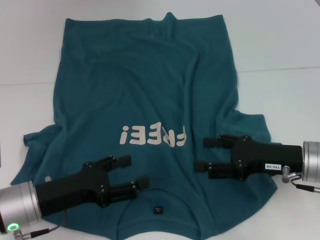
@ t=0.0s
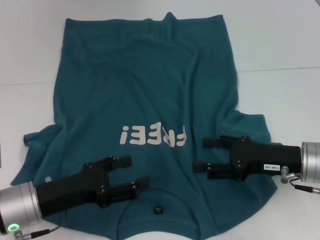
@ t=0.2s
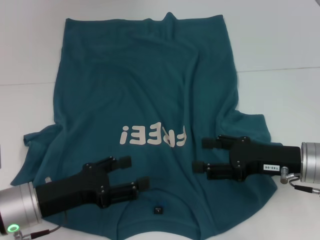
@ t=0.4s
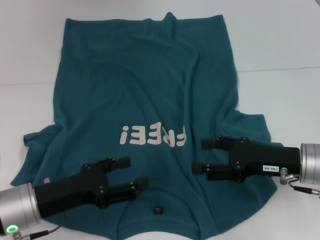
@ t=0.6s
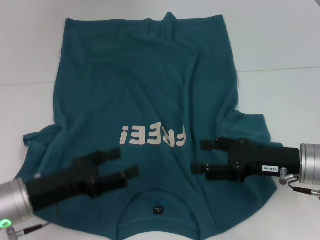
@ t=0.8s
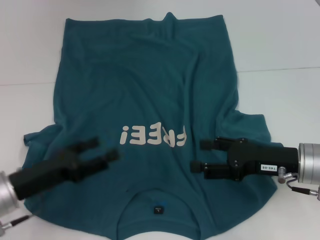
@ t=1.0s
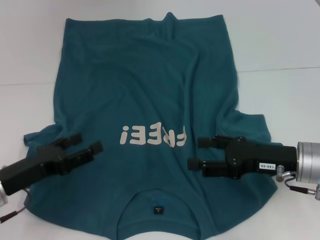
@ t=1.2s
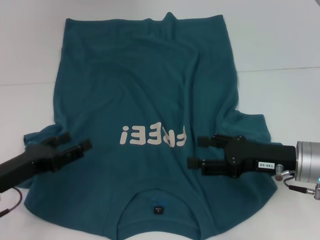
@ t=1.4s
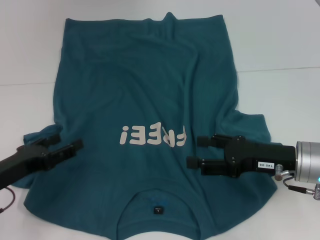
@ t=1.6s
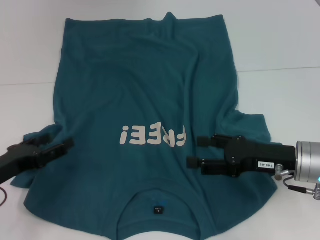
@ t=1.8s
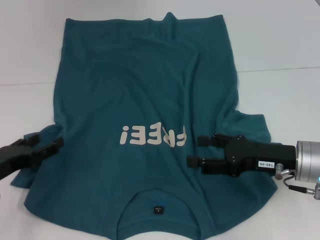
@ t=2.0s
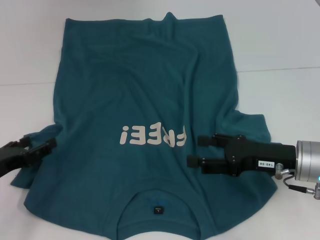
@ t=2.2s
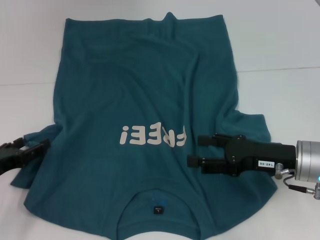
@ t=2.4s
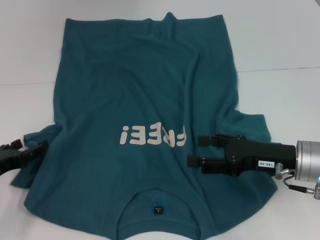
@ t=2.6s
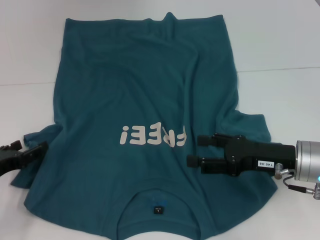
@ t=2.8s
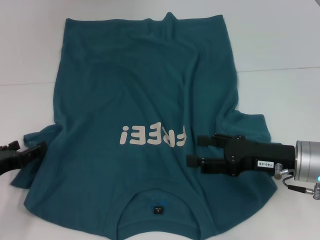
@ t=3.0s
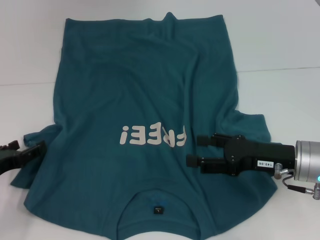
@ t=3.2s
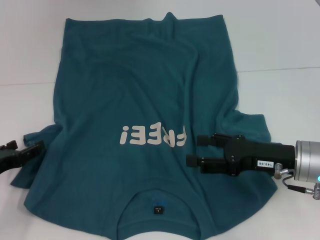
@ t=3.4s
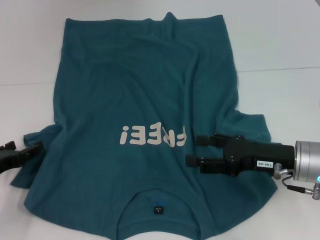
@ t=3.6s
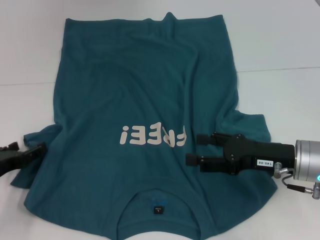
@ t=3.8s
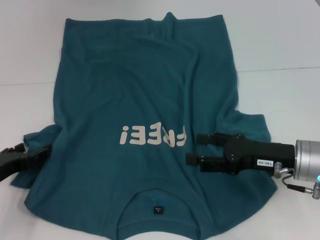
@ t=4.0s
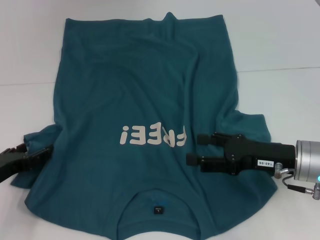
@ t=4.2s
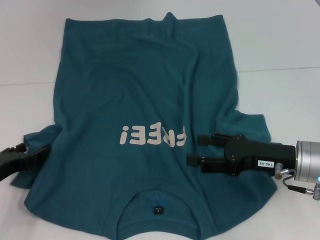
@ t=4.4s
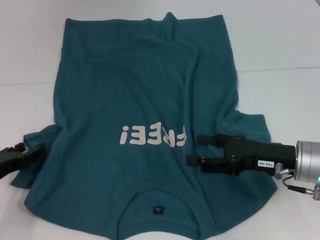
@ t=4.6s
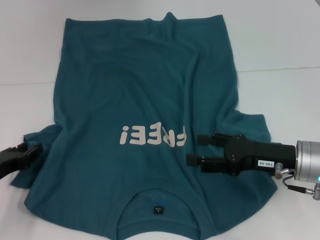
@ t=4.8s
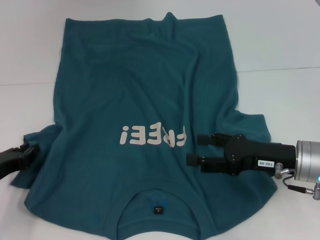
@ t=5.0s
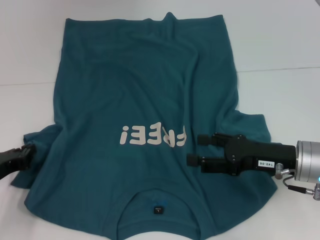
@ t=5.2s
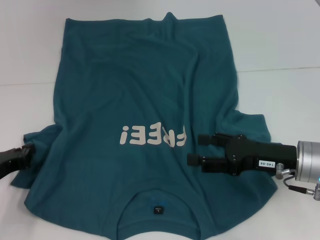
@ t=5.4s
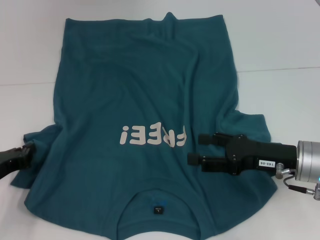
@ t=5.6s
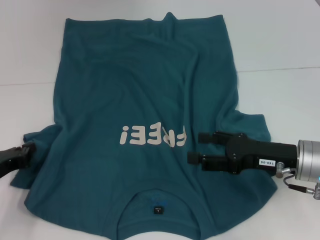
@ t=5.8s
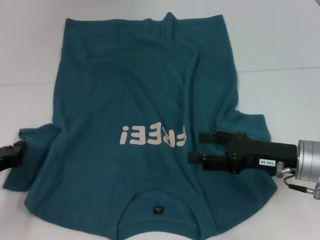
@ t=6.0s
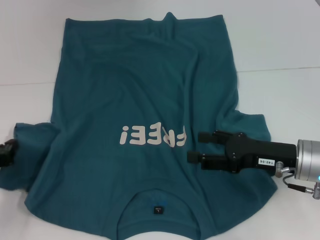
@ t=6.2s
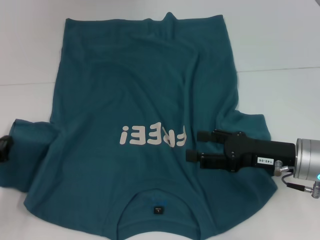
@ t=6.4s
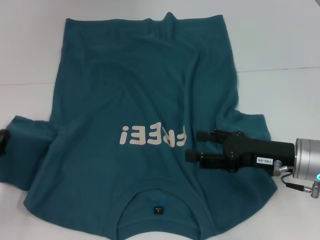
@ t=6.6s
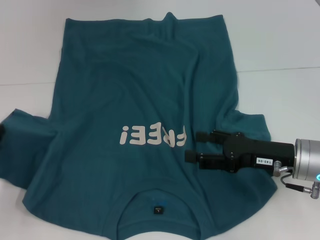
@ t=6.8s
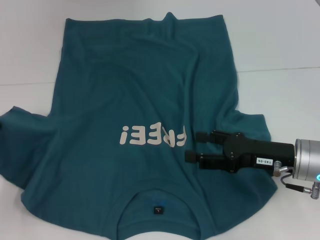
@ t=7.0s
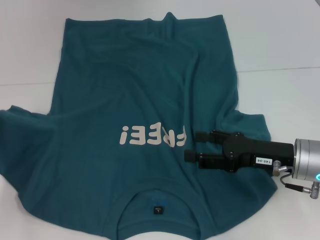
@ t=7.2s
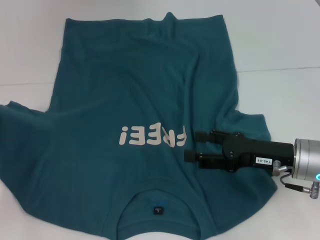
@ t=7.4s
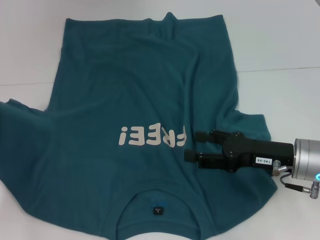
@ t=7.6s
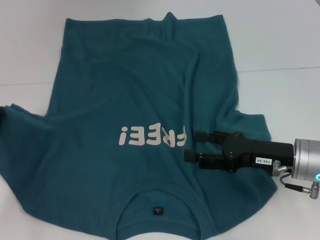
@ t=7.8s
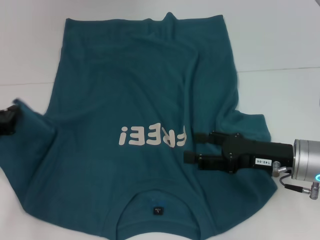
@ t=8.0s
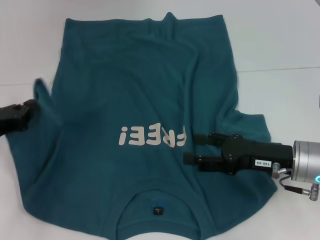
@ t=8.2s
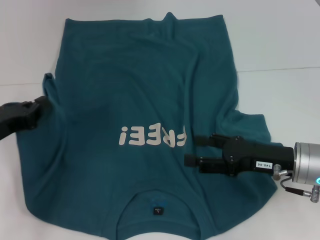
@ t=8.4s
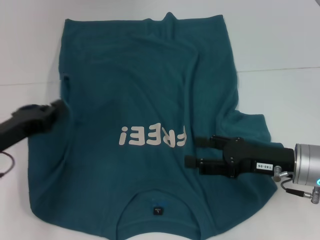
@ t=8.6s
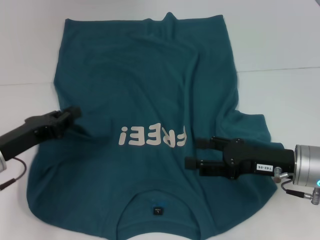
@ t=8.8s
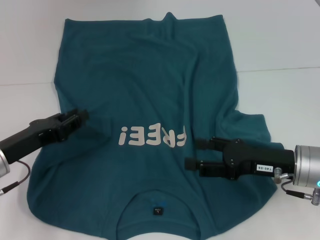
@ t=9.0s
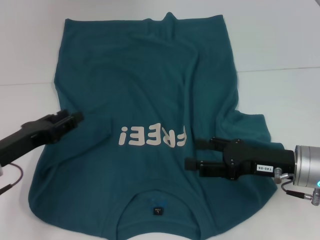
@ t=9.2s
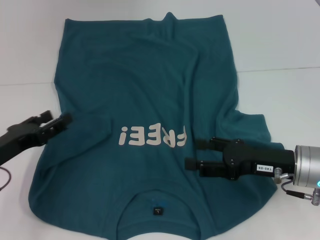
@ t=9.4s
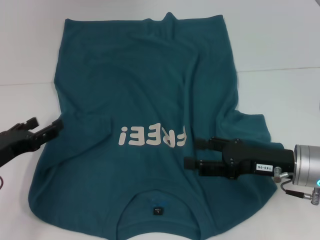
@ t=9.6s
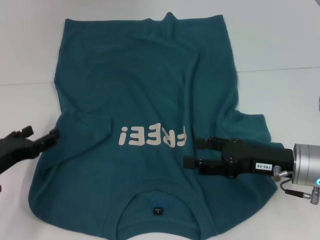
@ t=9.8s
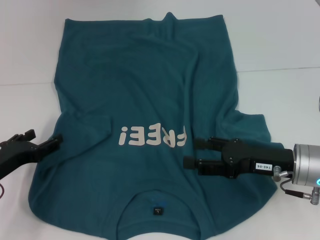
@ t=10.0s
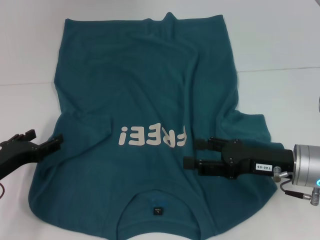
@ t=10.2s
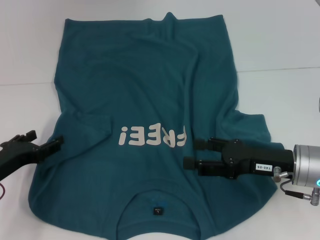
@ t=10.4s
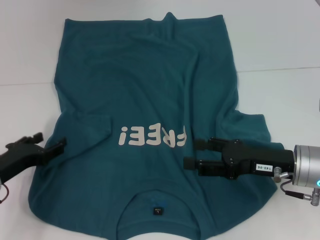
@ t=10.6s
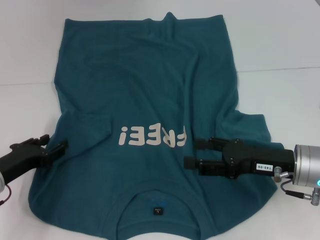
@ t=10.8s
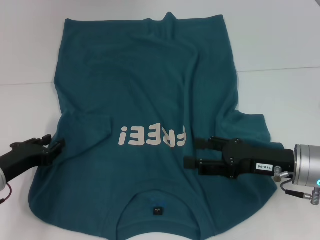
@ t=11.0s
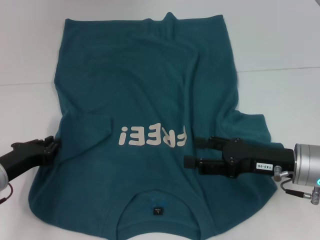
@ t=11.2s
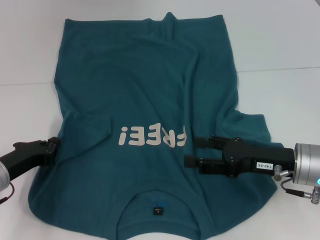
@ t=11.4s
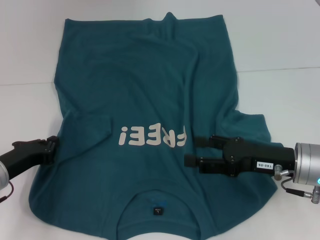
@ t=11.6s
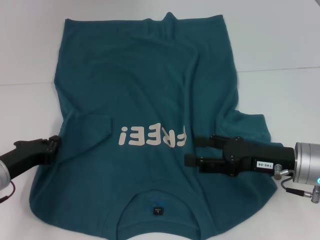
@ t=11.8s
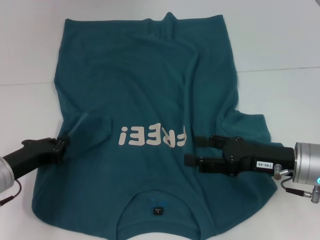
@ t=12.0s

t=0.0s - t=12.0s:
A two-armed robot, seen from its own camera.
t=0.0s - t=1.6s: The left gripper goes some 5 cm to the left.
t=1.6s - t=3.0s: There are only small adjustments of the grippers.
t=4.4s - t=6.0s: The left gripper closes.
t=6.0s - t=7.6s: The left gripper goes approximately 5 cm upward.
t=7.6s - t=9.0s: The left gripper travels to the right by roughly 10 cm.
t=9.0s - t=10.4s: The left gripper shifts by about 5 cm, and opens its fingers.
t=10.4s - t=12.0s: The left gripper closes its fingers.

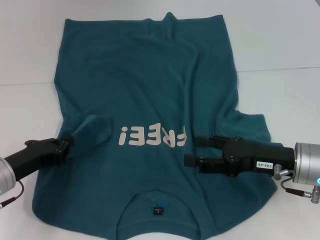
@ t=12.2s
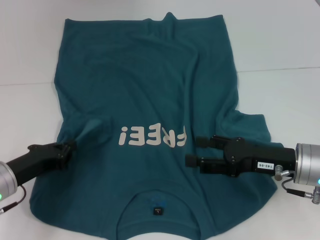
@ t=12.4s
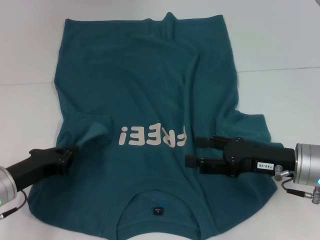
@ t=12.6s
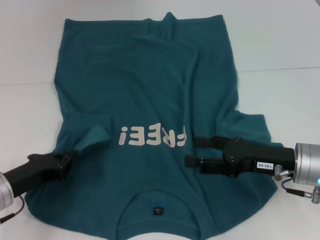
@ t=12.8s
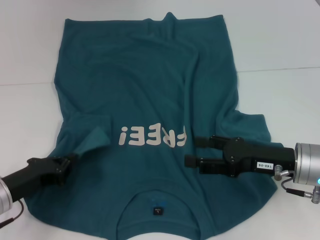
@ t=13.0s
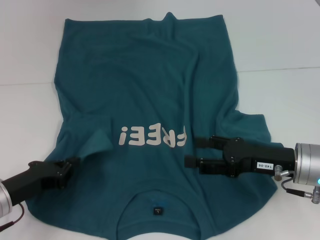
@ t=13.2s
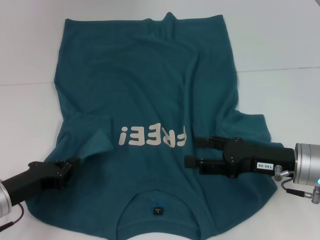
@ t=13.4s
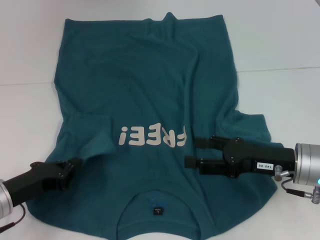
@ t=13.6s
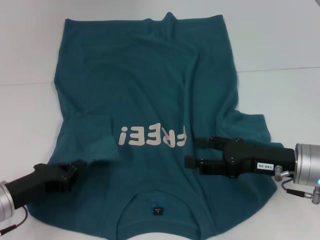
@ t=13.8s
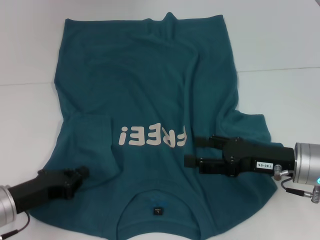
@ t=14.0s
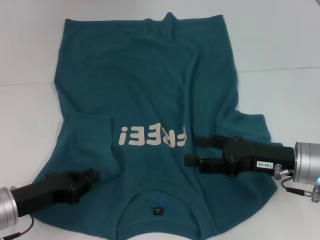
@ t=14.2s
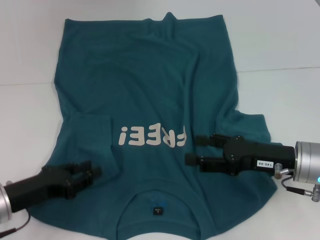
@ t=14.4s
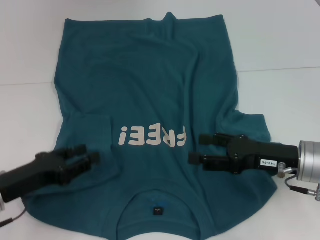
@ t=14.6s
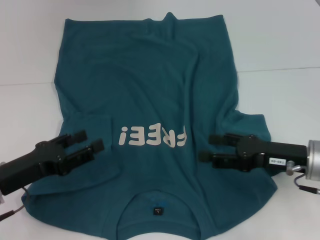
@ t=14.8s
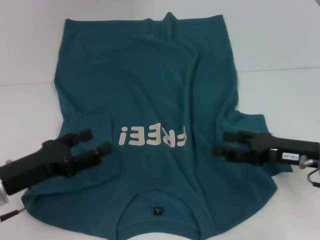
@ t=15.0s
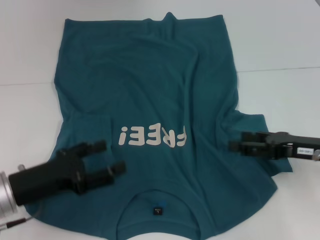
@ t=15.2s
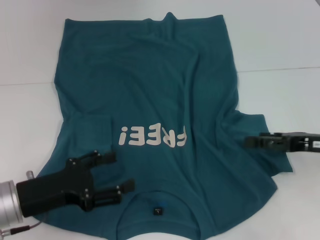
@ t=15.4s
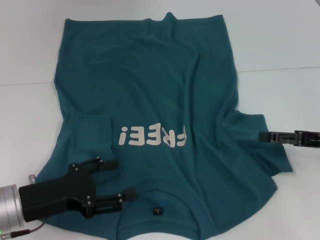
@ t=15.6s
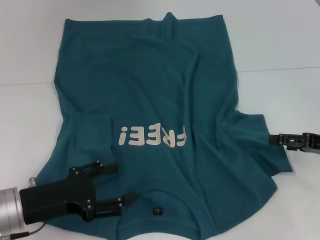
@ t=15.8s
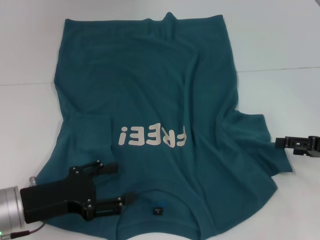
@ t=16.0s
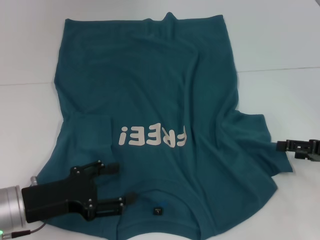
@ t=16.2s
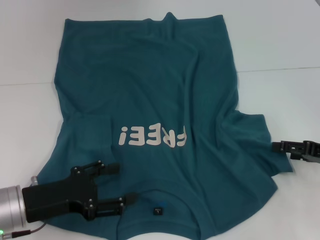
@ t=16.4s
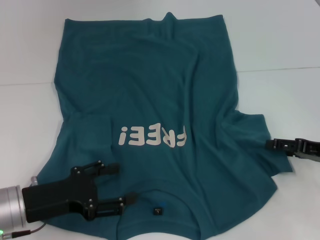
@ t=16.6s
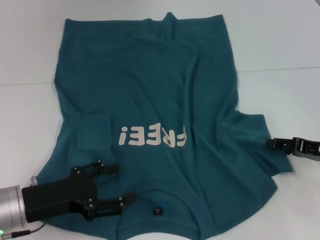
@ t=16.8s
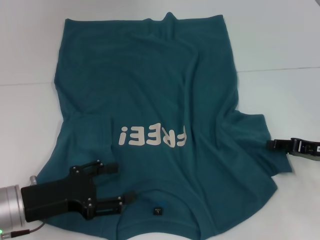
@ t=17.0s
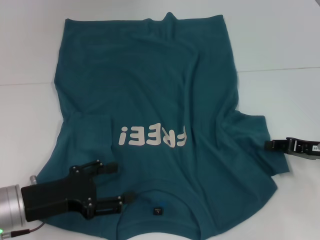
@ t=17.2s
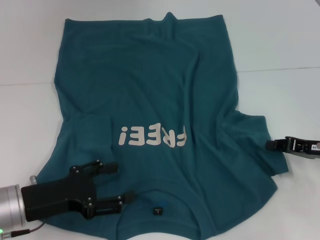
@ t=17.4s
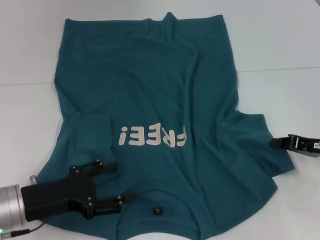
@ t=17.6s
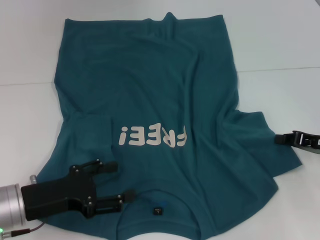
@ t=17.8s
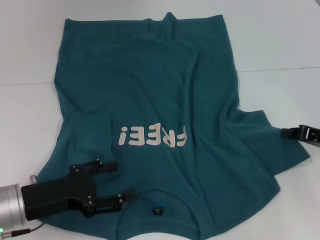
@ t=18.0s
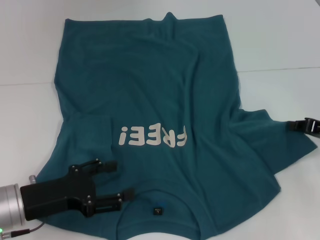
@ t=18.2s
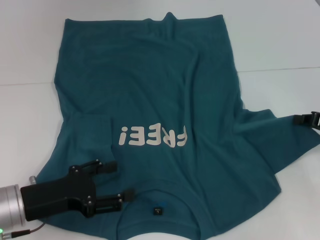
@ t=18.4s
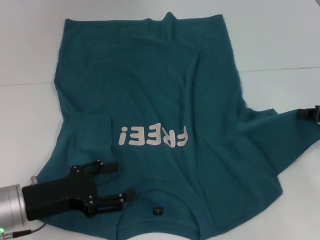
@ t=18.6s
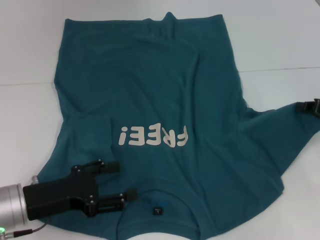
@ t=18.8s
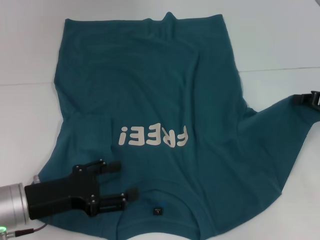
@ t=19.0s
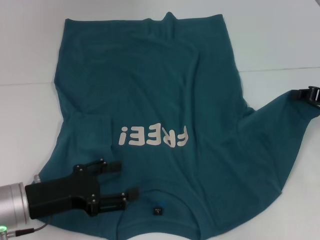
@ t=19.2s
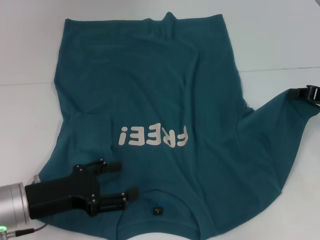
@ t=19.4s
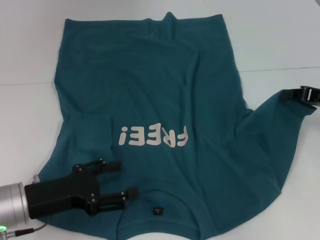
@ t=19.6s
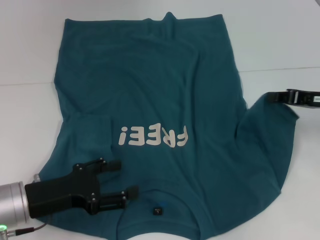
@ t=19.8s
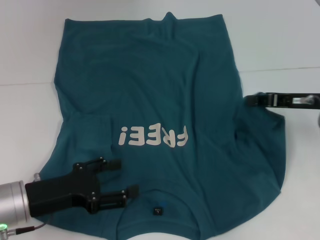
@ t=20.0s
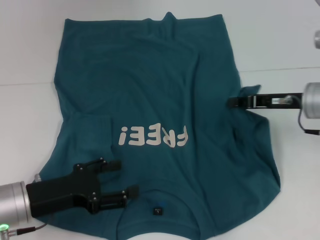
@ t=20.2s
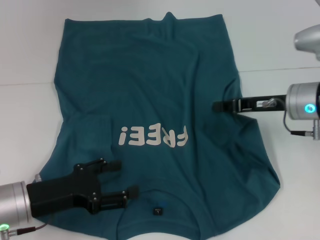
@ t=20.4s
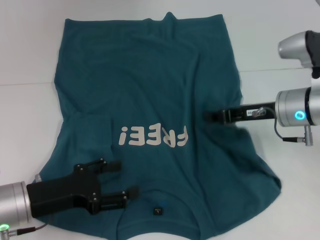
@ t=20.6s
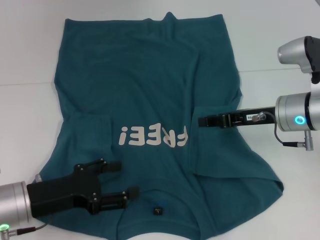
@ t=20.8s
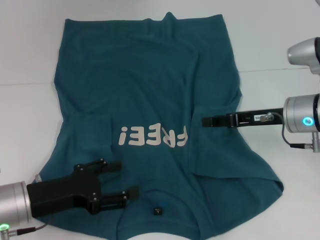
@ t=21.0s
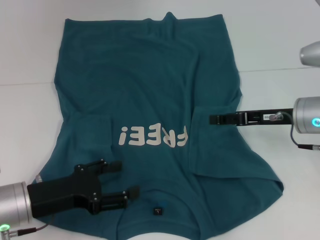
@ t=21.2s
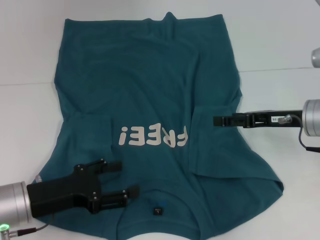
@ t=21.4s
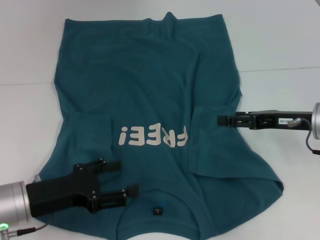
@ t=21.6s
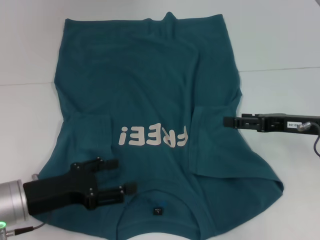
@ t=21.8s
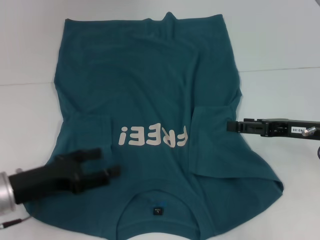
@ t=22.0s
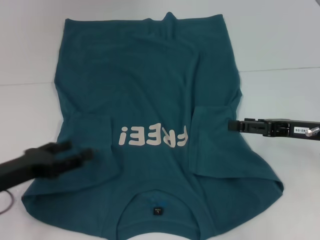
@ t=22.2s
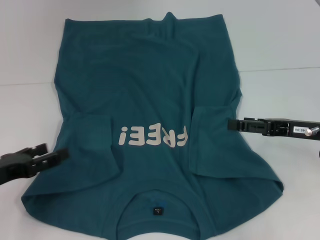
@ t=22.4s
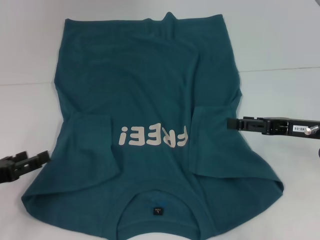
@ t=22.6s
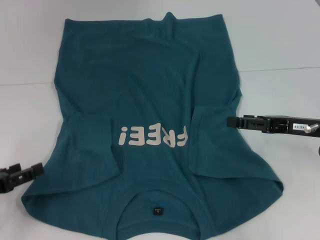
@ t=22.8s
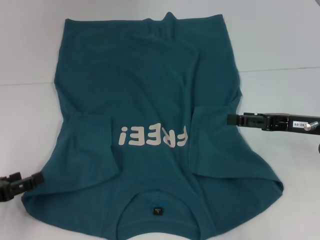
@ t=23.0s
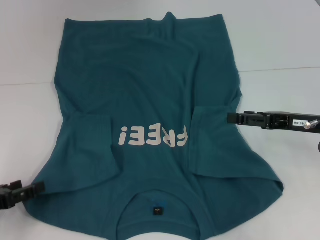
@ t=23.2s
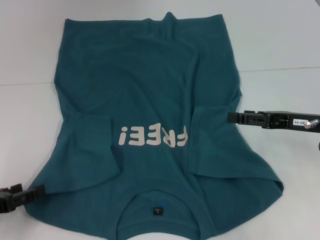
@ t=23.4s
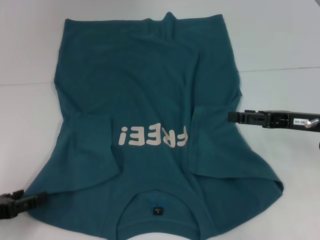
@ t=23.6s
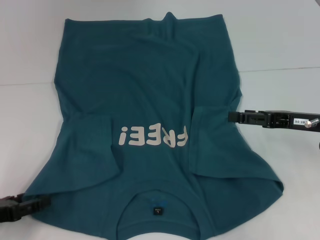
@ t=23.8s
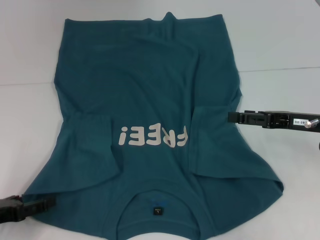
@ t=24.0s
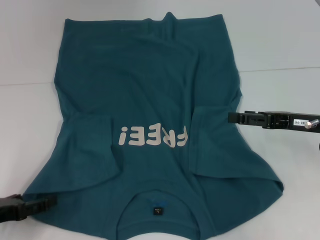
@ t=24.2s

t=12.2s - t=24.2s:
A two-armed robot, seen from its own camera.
Step, t=12.2s - t=14.6s: Fold the bottom left sleeve with your left hand.
Step, t=14.8s - t=21.4s: Fold the bottom right sleeve to the right.
t=12.2s - t=13.8s: There are only small adjustments of the grippers.
t=13.8s - t=15.2s: The left gripper opens, while the right gripper travels to the right by about 5 cm.
t=16.6s - t=18.2s: The right gripper closes its fingers.
t=18.2s - t=19.8s: The right gripper shifts by approximately 5 cm.
t=19.8s - t=21.2s: The right gripper goes about 5 cm to the left, and opens.
t=21.2s - t=22.6s: The right gripper shifts by approximately 5 cm, while the left gripper travels to the left by some 10 cm.
t=22.6s - t=24.2s: The grippers make only small movements.
